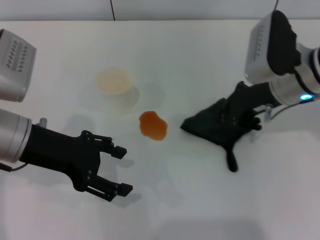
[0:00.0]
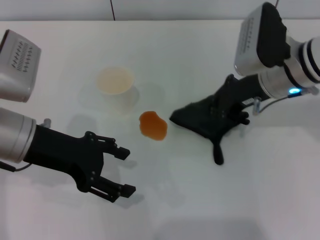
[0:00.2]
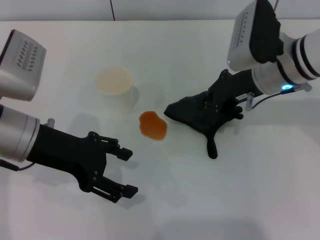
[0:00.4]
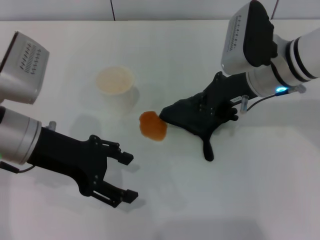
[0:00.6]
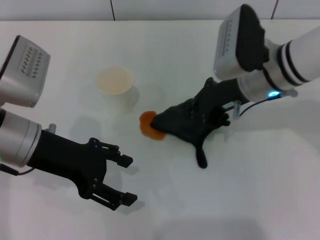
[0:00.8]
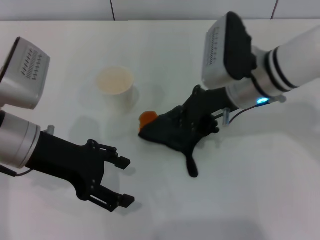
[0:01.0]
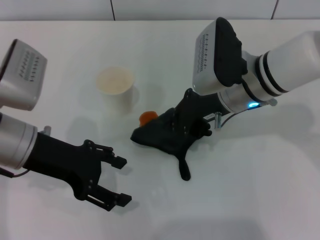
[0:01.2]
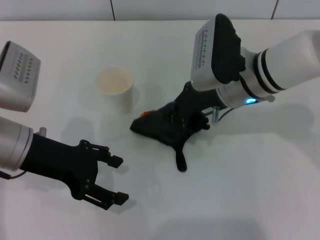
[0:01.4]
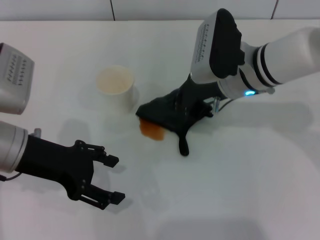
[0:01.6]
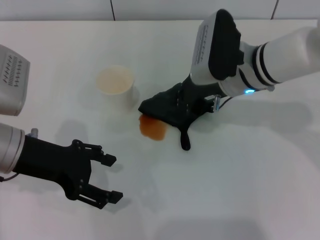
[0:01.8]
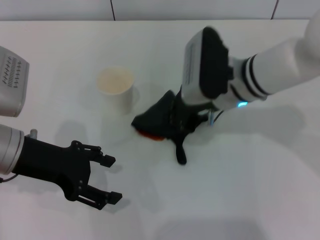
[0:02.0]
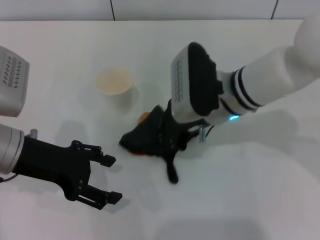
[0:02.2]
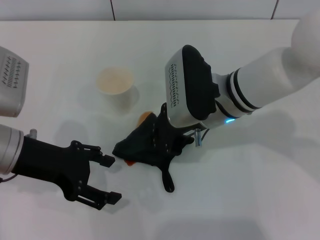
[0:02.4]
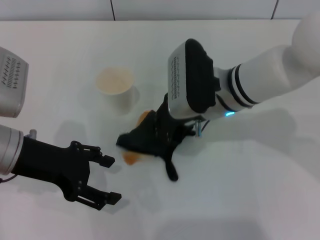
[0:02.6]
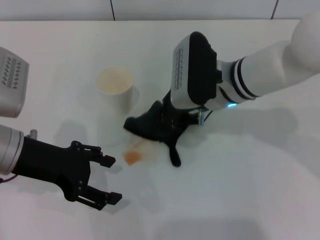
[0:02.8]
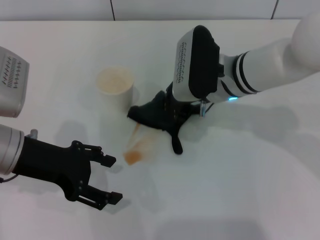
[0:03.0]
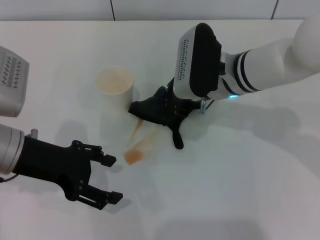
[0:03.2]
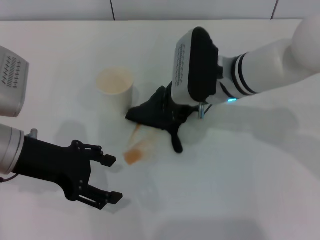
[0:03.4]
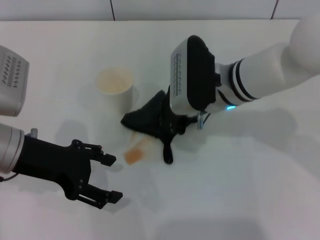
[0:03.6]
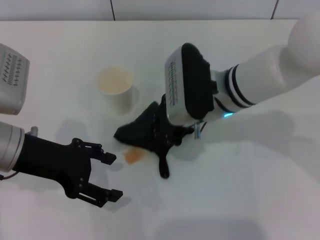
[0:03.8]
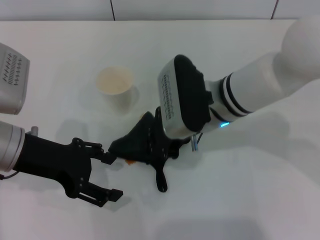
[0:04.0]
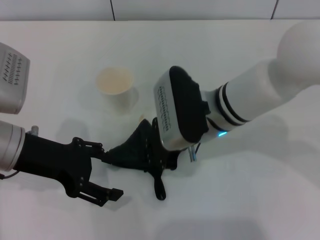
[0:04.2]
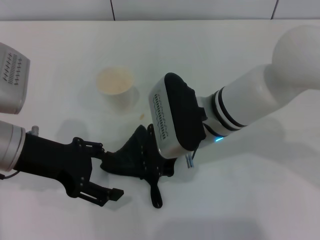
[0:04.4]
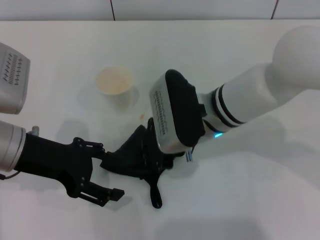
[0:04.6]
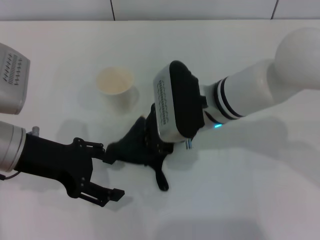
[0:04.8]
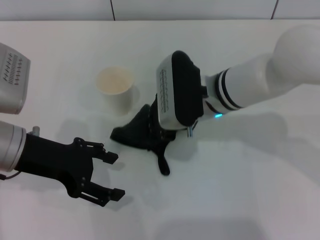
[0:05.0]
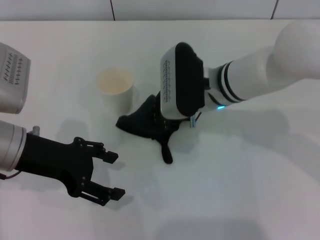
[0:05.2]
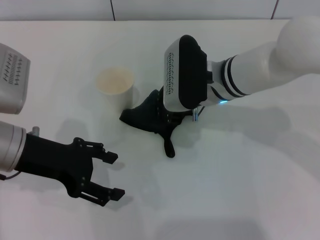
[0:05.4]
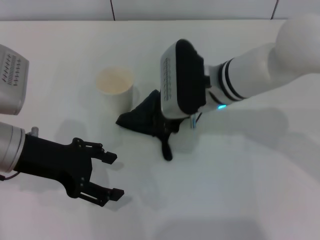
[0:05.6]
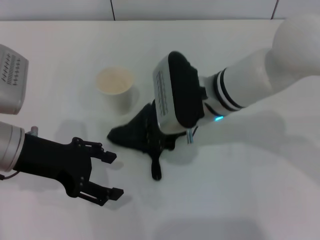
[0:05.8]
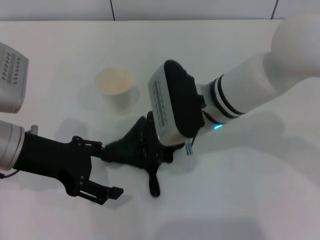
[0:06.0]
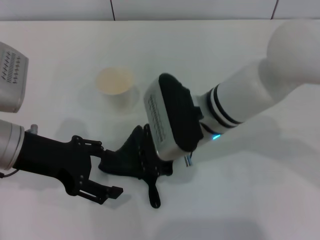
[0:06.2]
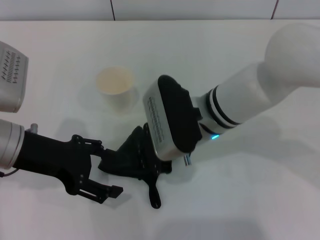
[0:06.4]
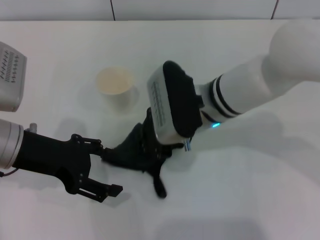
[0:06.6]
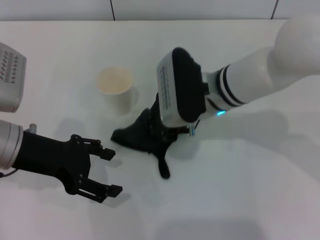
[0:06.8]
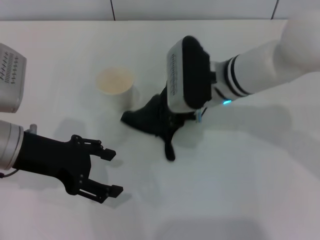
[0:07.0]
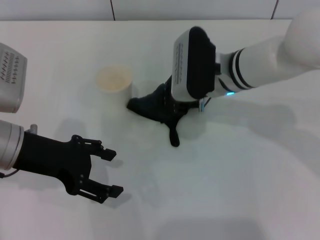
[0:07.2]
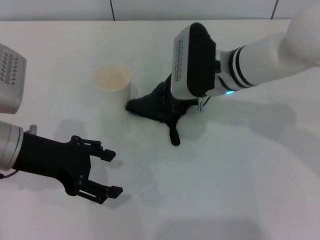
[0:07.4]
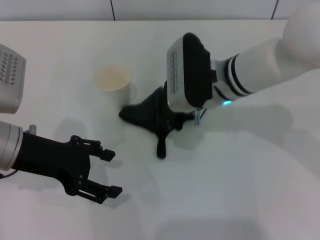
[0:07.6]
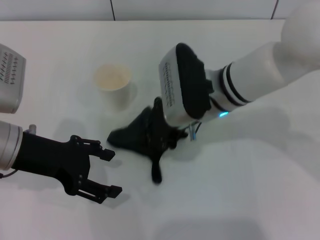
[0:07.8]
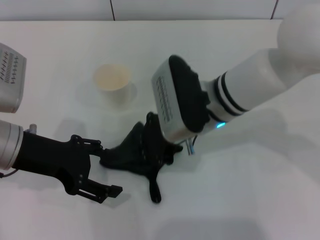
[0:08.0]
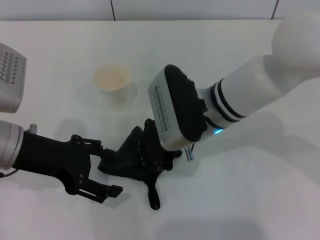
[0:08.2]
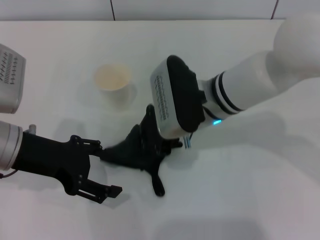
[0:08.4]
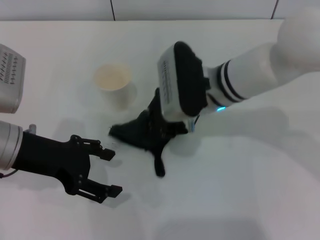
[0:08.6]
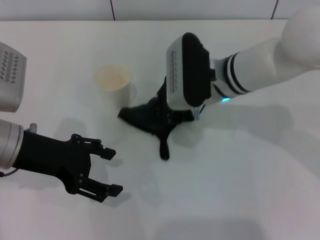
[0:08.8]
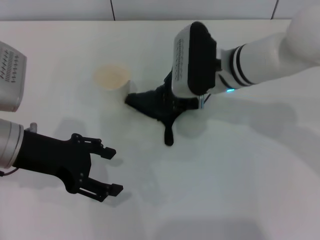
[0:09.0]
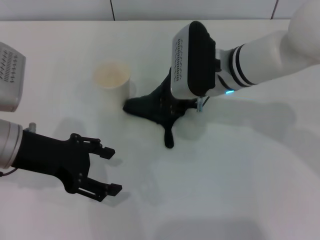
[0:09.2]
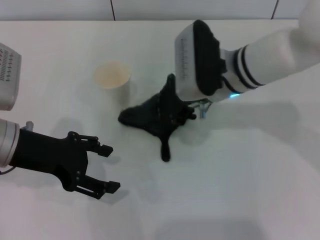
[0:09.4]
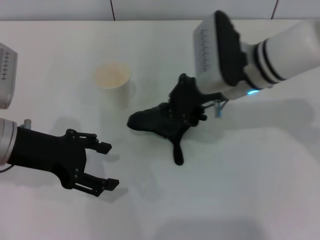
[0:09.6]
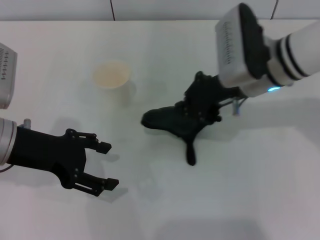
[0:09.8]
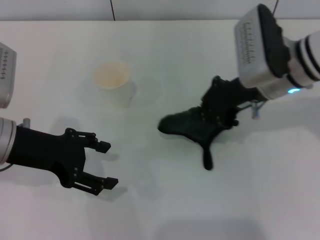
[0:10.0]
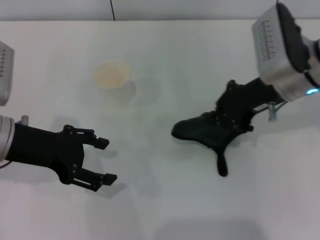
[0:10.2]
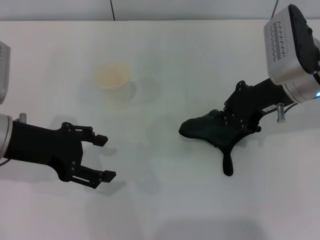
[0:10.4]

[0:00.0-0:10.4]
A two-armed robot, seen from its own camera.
0:00.0 to 0:01.4: The right gripper travels to the left by about 5 cm.
0:01.4 to 0:03.0: The grippers stay close to where they were, moving slightly.
0:03.0 to 0:04.4: The right gripper moves backward, roughly 5 cm.
0:04.4 to 0:06.0: There are only small adjustments of the grippers.
0:06.0 to 0:07.4: The right gripper goes about 5 cm forward.
0:09.0 to 0:10.4: The right gripper heads to the right, covering approximately 10 cm.

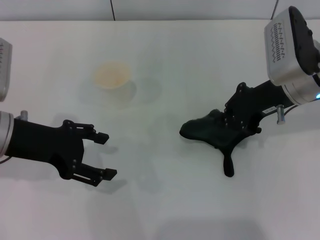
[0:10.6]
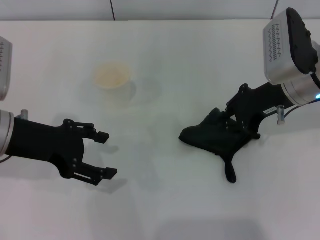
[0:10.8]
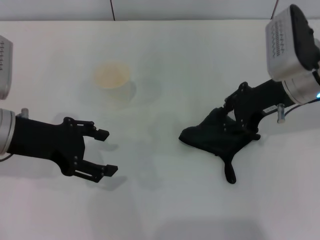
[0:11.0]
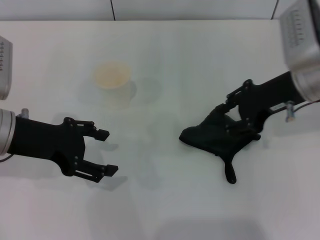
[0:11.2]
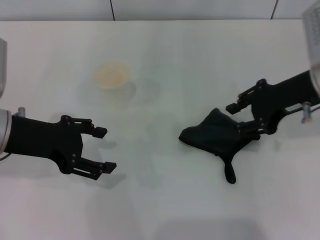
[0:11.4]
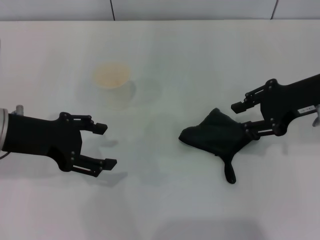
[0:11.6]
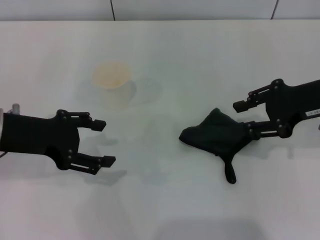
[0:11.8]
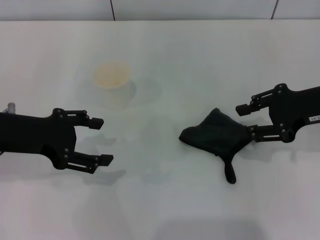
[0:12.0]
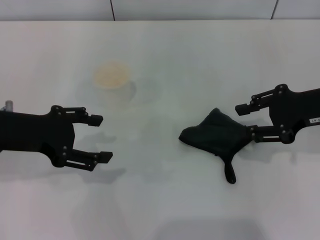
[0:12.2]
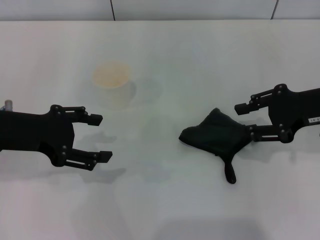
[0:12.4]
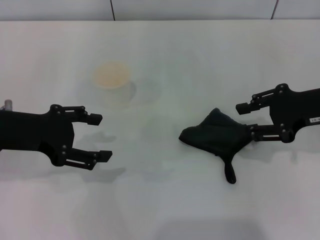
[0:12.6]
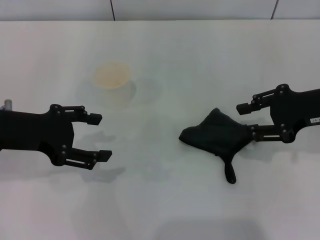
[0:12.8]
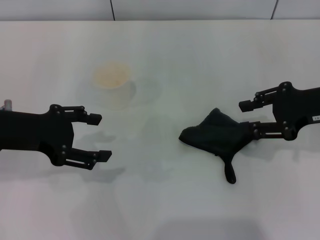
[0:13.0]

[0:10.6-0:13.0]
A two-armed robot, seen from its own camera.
Step, 0:10.8 to 0:11.4: Place the rag on the table with the right gripper.
0:10.6 to 0:11.8: The right gripper heads to the right, covering about 5 cm, and opens.
0:11.8 to 0:13.0: The grippers stay close to where they were, moving slightly.
